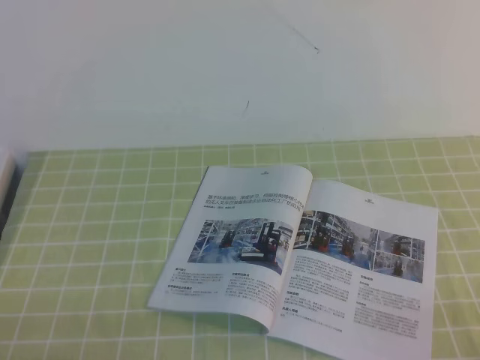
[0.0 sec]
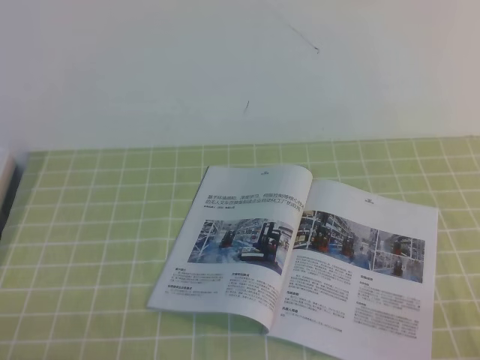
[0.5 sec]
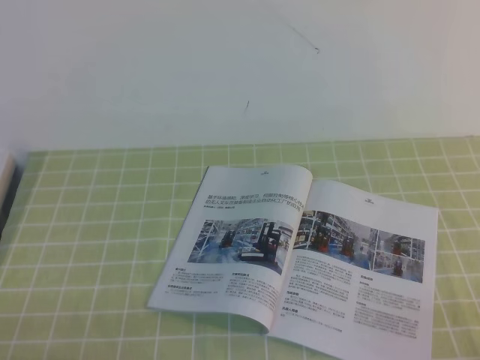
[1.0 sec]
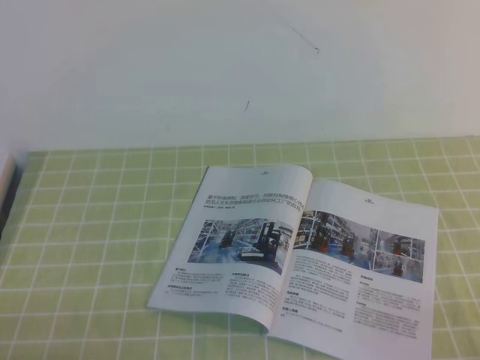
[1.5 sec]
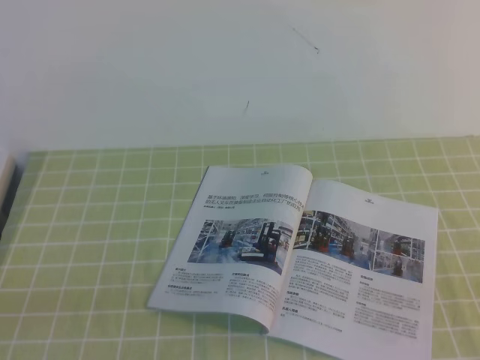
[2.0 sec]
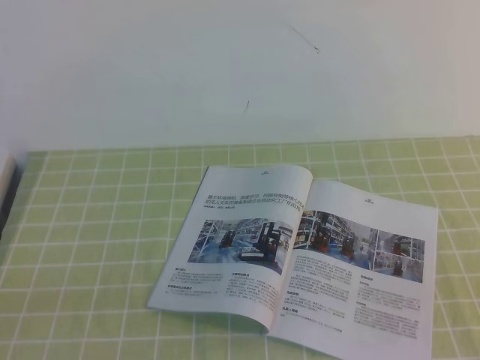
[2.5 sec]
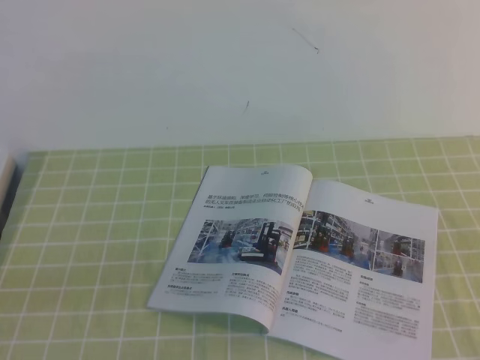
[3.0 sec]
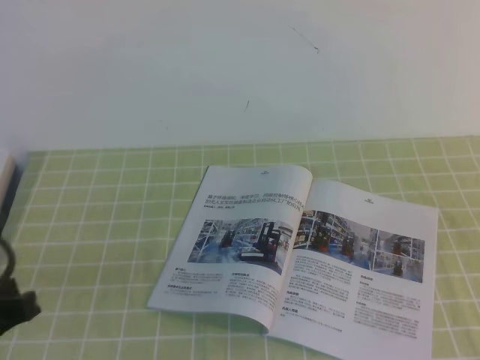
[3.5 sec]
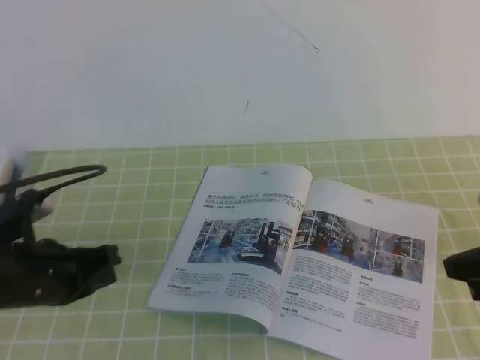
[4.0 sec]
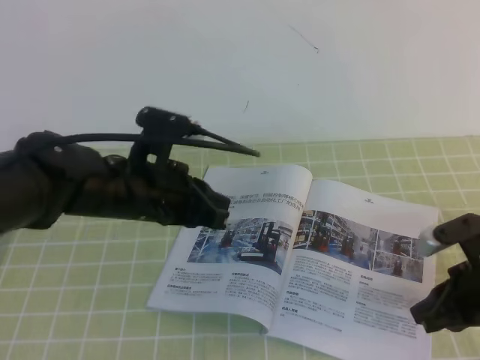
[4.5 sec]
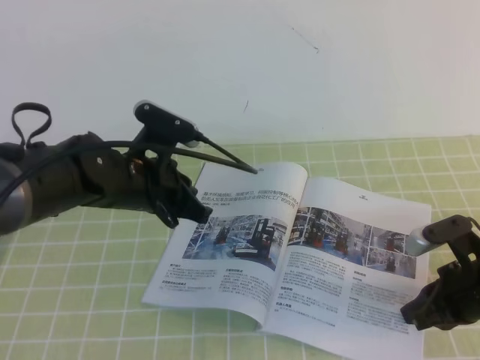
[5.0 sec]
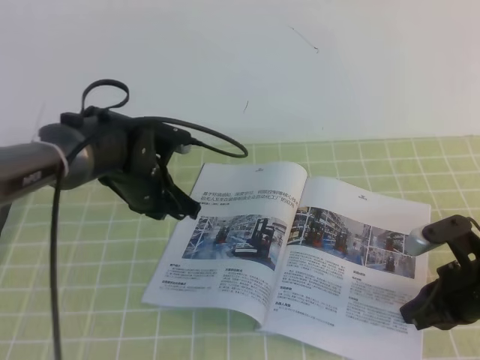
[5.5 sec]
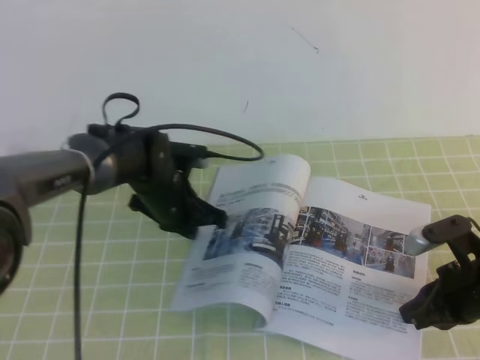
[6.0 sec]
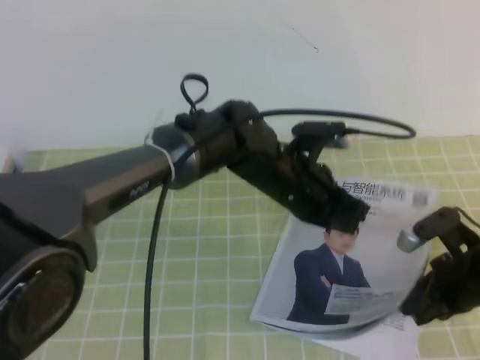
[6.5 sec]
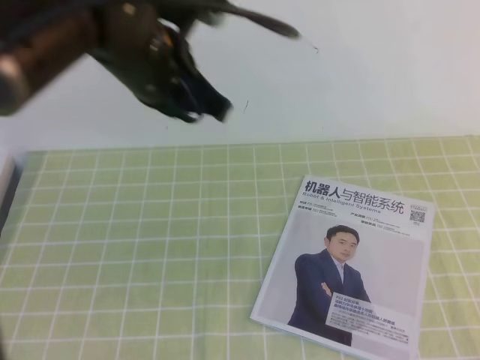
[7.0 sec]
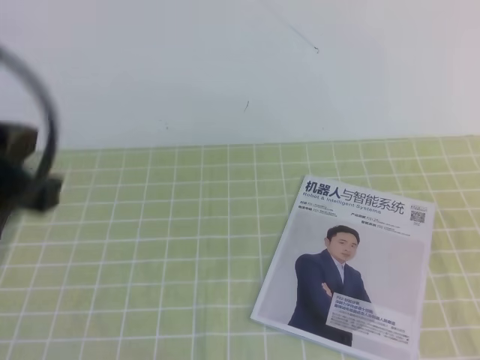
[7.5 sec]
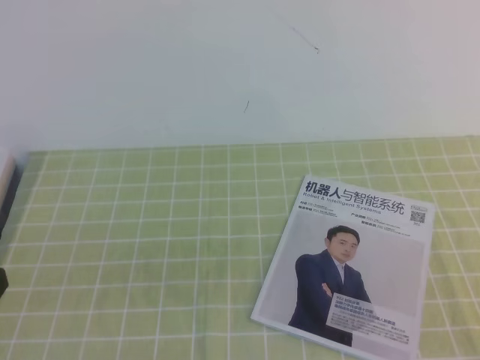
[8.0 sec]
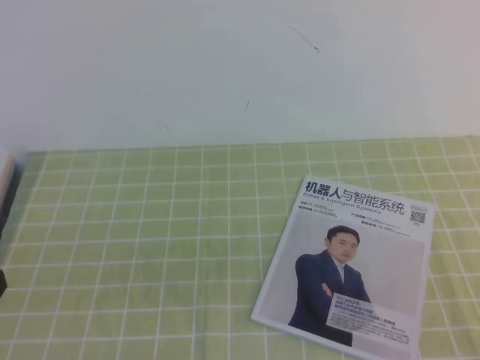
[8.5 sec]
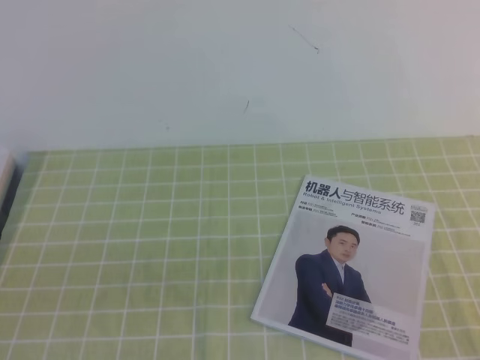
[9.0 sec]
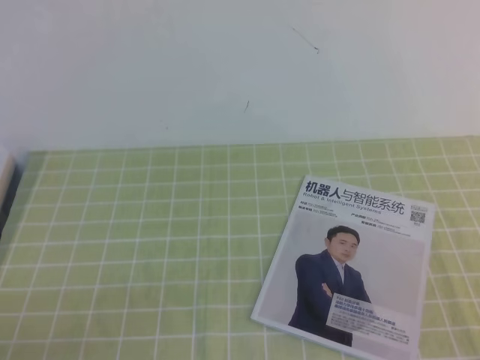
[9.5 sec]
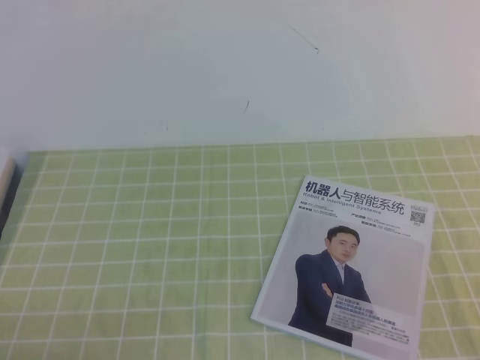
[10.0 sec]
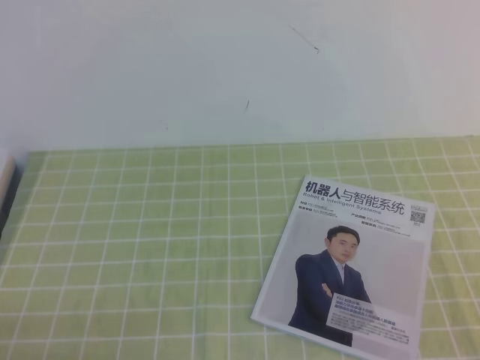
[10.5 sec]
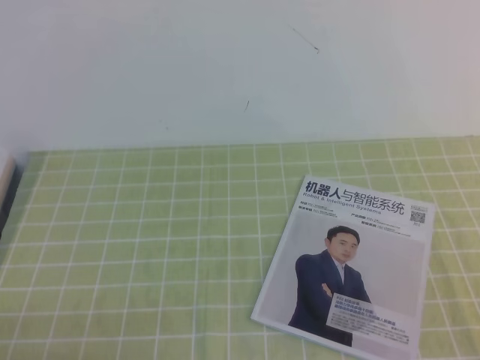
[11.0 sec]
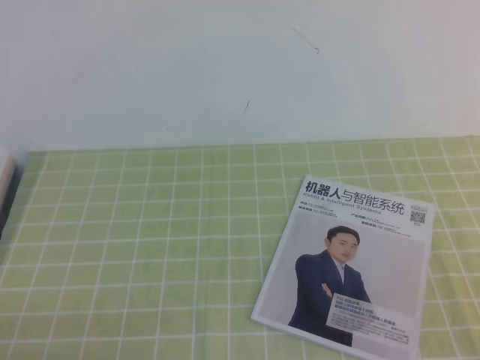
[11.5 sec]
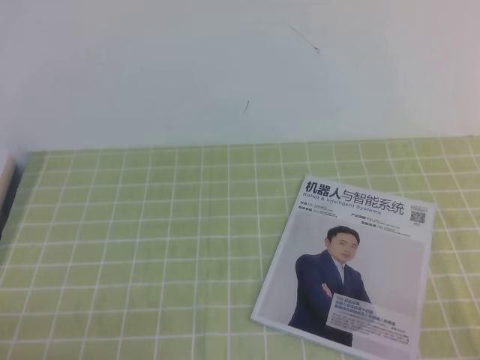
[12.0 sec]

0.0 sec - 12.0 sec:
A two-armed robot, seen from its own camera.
Task of the whole recording: on the green tablecloth, hold the book with one hand and close it with the other.
Step, 0.0 sec - 12.0 sec: Close the open book.
2.0 sec - 4.0 sec: The two grippers go approximately 20 cm forward.
4.0 sec - 6.0 sec: The right gripper heads downward, covering roughly 10 cm. Meanwhile the left gripper goes some 20 cm forward and to the right.
6.0 sec - 8.0 sec: The right gripper moves backward and upward, roughly 25 cm. The left gripper is displaced backward, upward and to the left by approximately 40 cm.
